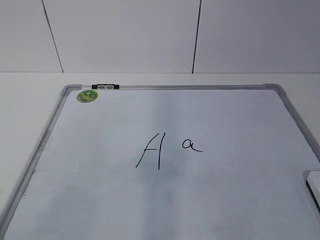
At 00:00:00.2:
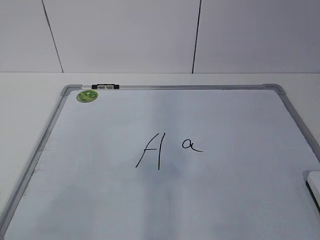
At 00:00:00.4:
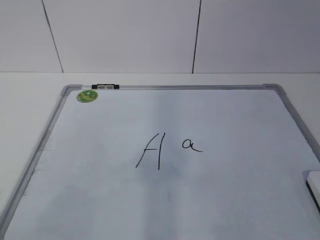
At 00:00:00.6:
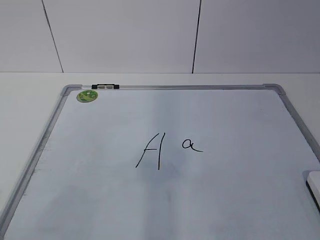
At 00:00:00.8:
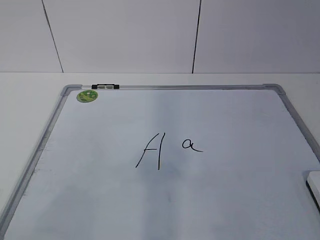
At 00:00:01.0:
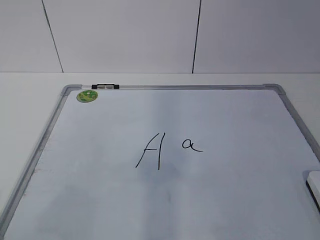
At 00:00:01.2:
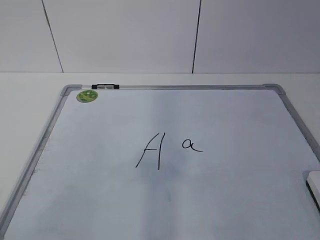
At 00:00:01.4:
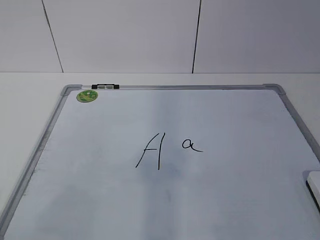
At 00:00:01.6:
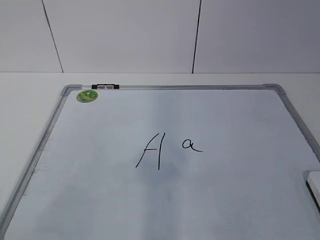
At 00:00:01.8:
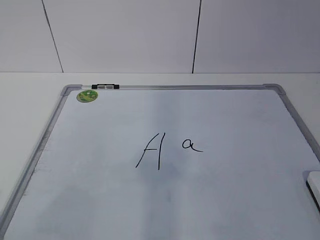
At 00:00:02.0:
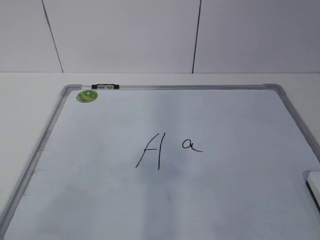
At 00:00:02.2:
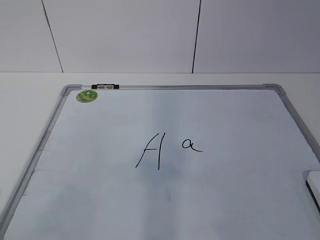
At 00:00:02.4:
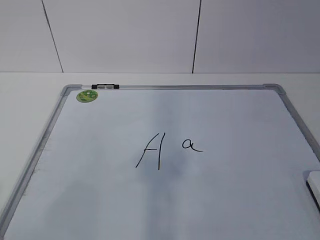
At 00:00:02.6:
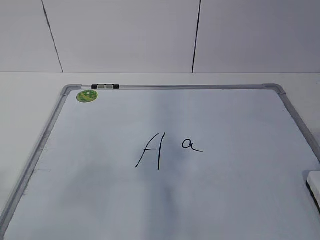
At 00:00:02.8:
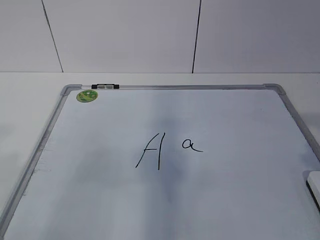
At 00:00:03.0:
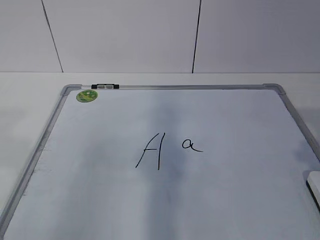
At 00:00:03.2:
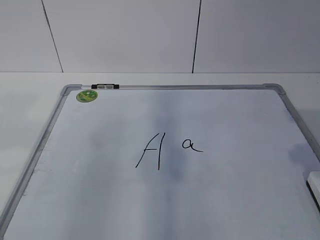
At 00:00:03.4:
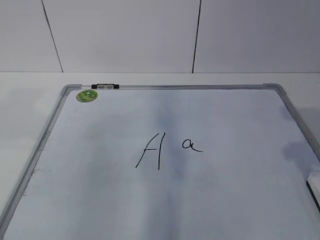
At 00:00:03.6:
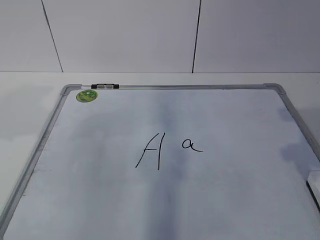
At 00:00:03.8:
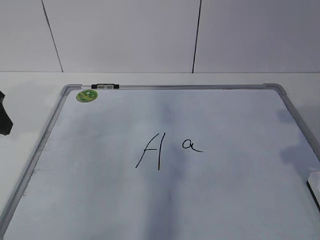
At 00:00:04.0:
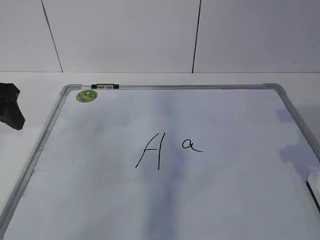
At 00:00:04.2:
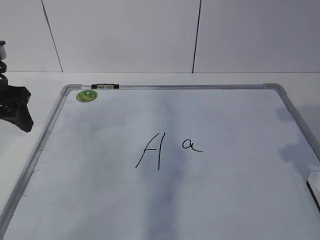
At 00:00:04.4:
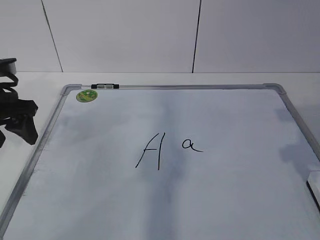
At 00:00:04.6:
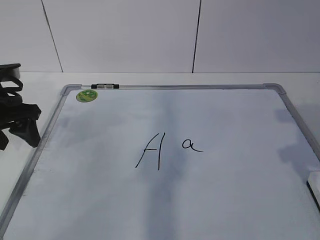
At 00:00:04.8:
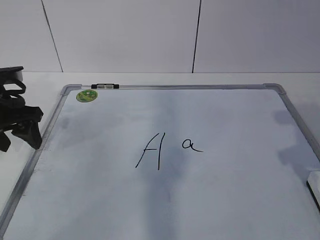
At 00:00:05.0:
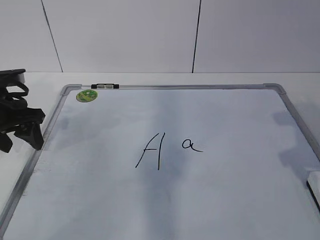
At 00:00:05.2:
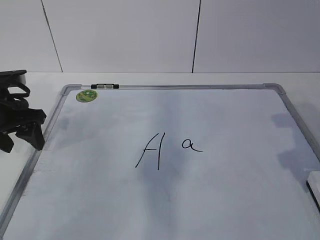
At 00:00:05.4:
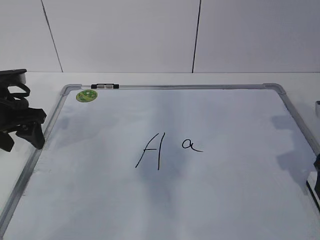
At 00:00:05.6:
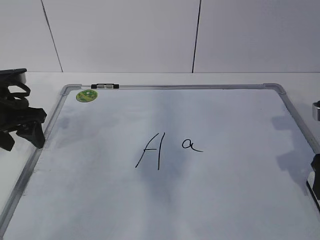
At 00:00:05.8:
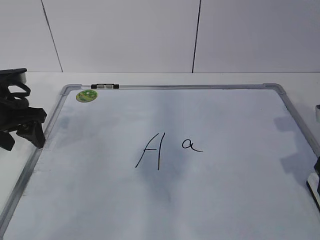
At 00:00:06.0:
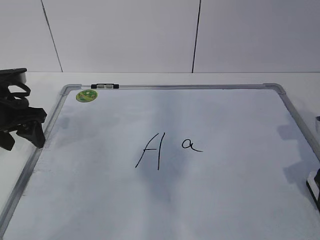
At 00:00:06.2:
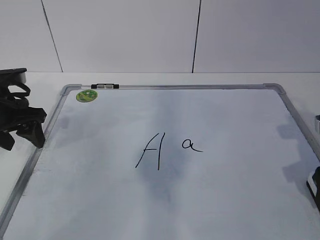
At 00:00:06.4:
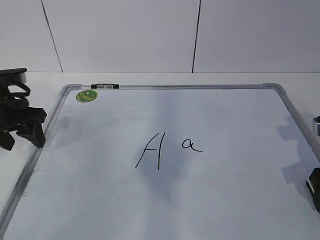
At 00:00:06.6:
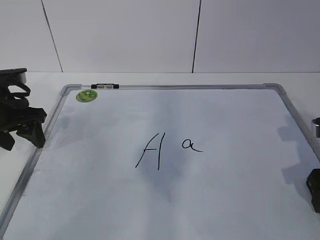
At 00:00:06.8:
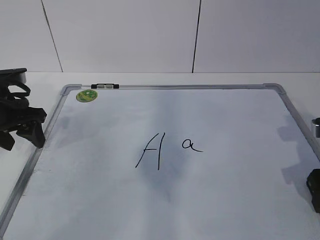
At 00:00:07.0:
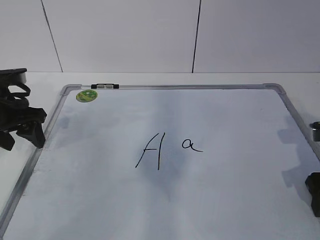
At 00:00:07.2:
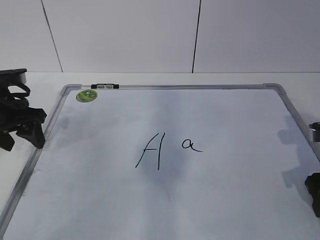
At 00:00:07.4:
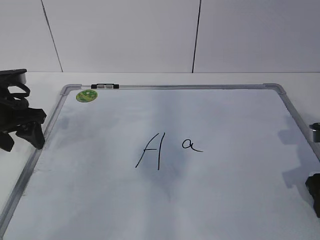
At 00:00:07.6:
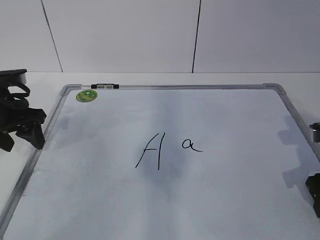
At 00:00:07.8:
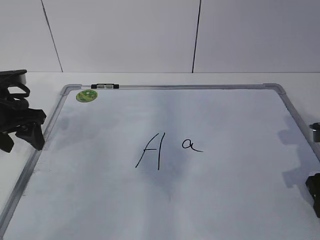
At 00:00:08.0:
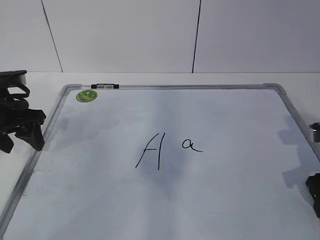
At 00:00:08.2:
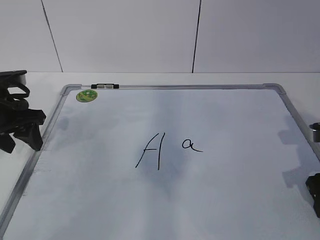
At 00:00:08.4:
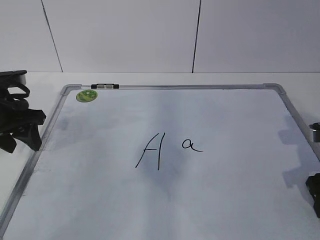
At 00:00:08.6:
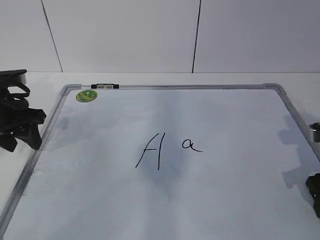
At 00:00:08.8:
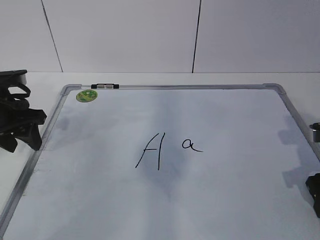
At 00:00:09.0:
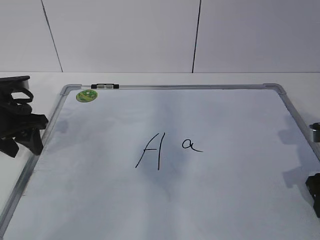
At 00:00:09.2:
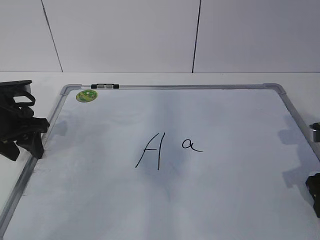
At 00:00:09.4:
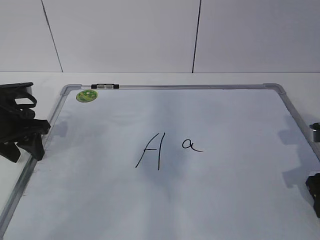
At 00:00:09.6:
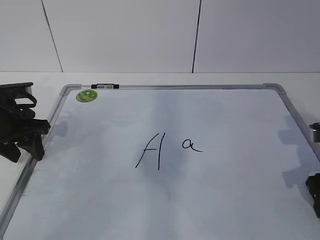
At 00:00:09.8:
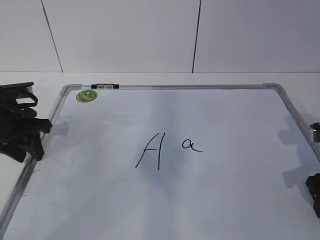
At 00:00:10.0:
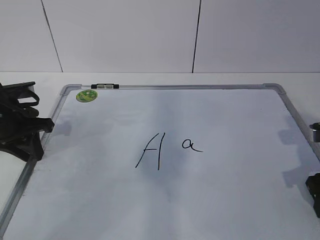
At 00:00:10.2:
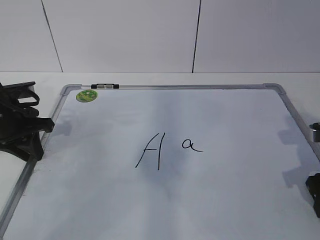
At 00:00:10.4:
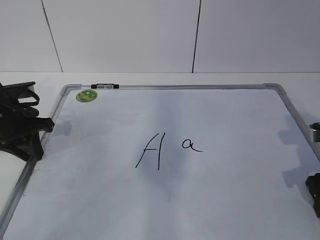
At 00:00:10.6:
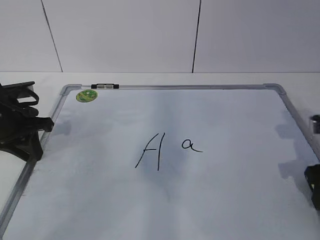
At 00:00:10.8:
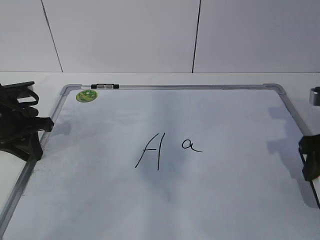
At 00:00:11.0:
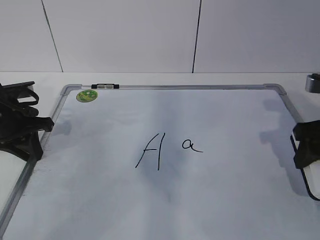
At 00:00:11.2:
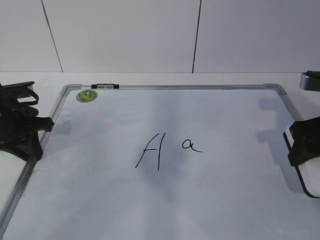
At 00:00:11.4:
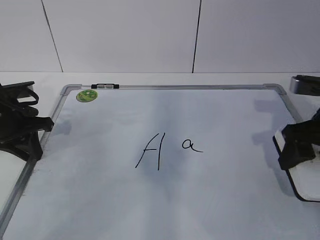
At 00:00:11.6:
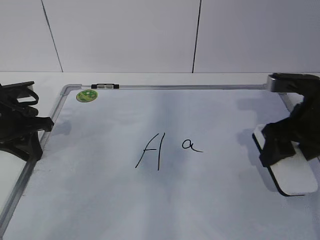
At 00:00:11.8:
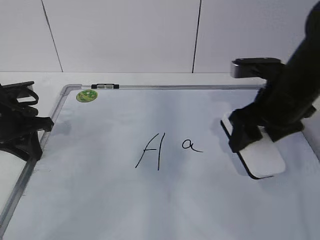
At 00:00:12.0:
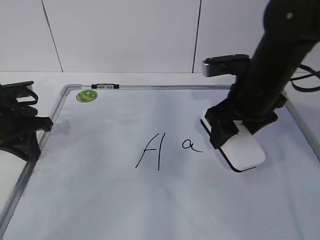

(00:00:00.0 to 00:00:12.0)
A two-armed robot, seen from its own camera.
Task of the whole recording: pick up the eraser on the blackboard and erase the letter "a".
Step, 00:00:00.0 - 00:00:08.6: Grab the eraser with your right hand.
Step, 00:00:08.8 - 00:00:10.0: Hold the drawing board steady with your left hand.
00:00:03.0 - 00:00:04.4: The left gripper moves forward and downward, approximately 25 cm.
00:00:04.4 - 00:00:06.0: The right gripper moves downward, approximately 10 cm, and opens up.
00:00:06.0 - 00:00:07.6: The right gripper closes up.
00:00:07.6 - 00:00:09.0: Both grippers stay put.
00:00:09.0 - 00:00:10.4: The left gripper closes.
00:00:10.4 - 00:00:12.0: The right gripper travels to the left, forward and upward by approximately 20 cm.

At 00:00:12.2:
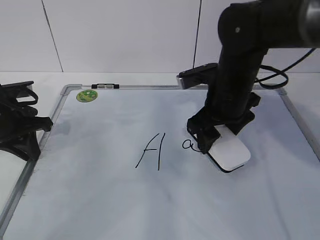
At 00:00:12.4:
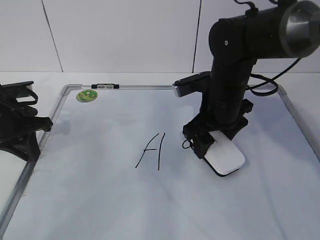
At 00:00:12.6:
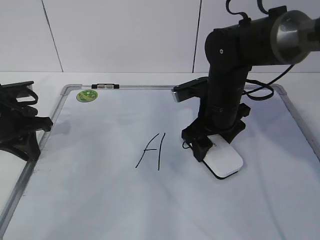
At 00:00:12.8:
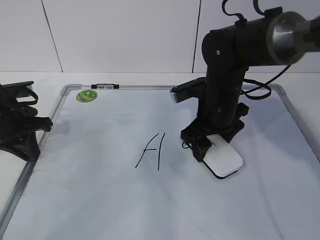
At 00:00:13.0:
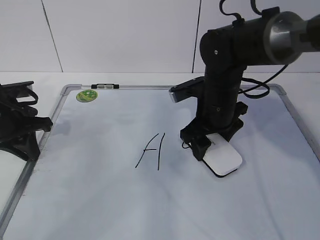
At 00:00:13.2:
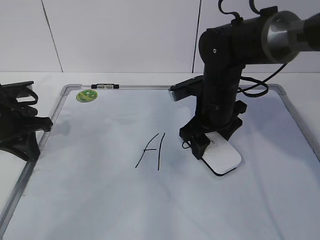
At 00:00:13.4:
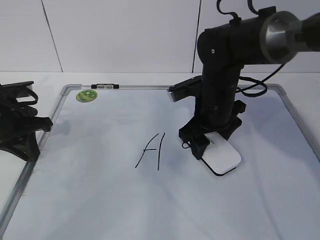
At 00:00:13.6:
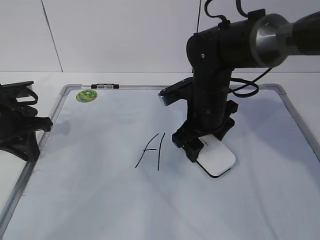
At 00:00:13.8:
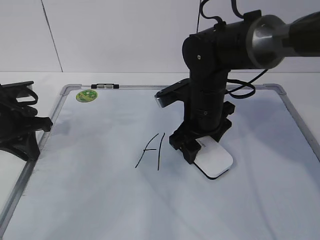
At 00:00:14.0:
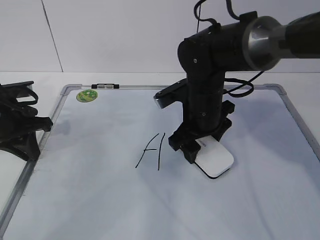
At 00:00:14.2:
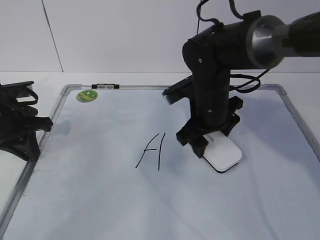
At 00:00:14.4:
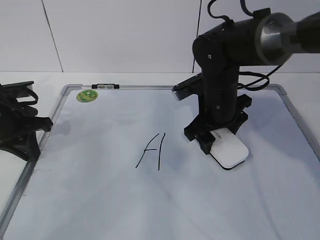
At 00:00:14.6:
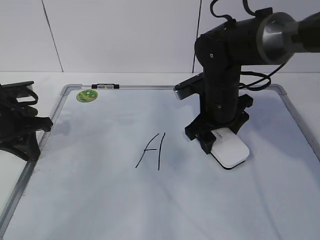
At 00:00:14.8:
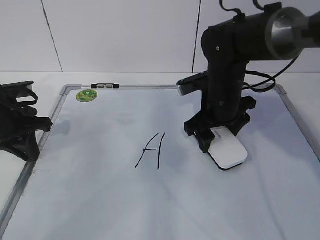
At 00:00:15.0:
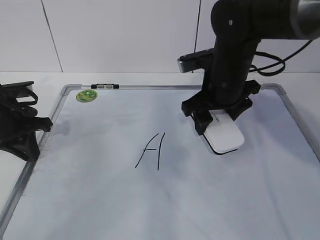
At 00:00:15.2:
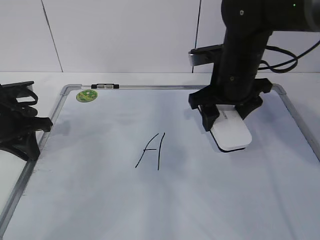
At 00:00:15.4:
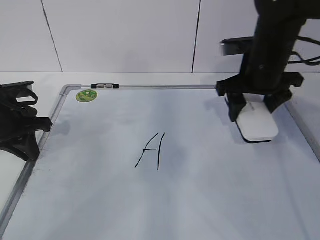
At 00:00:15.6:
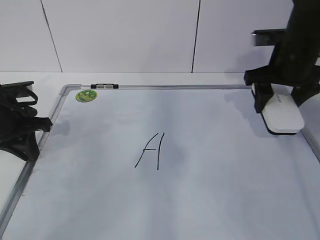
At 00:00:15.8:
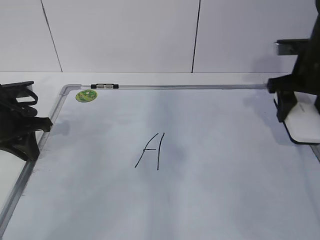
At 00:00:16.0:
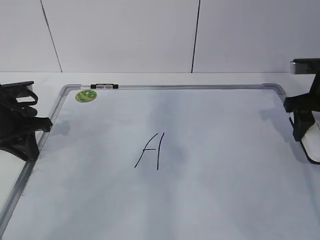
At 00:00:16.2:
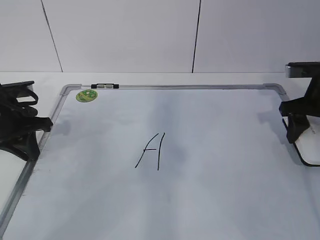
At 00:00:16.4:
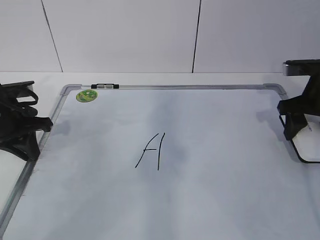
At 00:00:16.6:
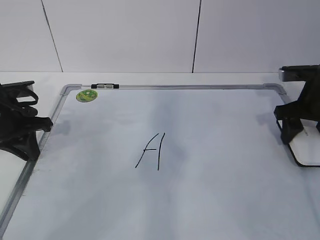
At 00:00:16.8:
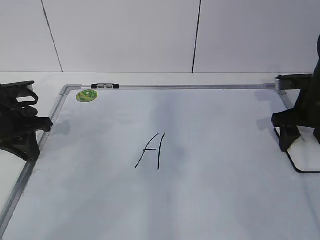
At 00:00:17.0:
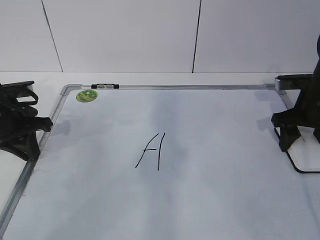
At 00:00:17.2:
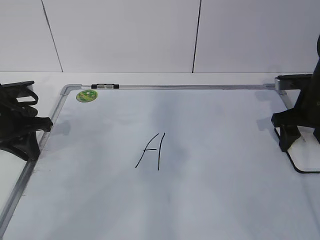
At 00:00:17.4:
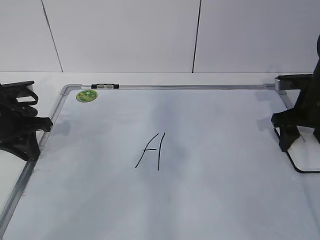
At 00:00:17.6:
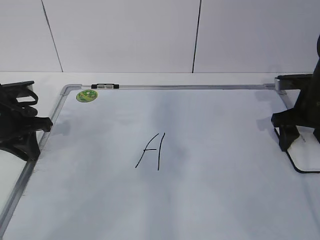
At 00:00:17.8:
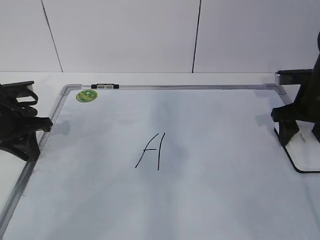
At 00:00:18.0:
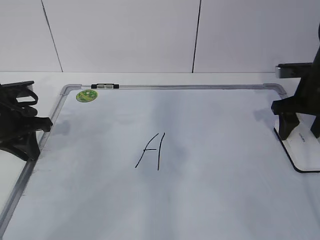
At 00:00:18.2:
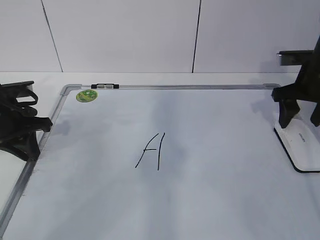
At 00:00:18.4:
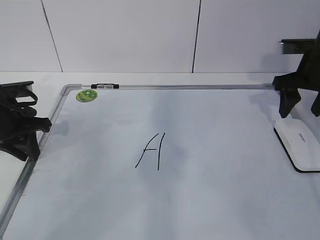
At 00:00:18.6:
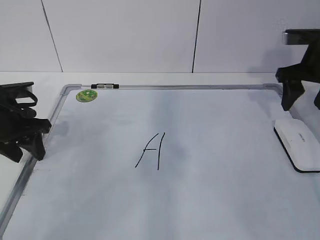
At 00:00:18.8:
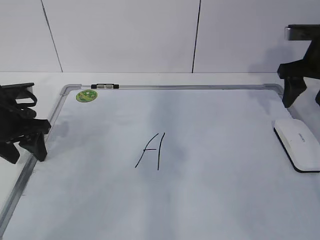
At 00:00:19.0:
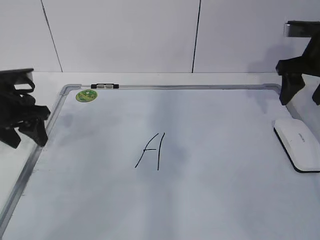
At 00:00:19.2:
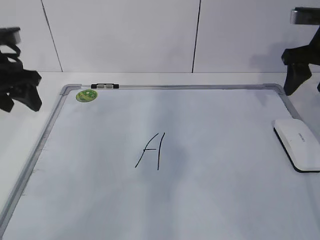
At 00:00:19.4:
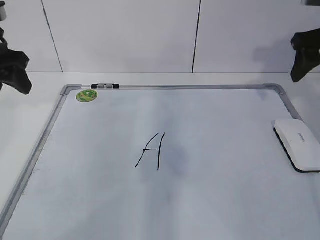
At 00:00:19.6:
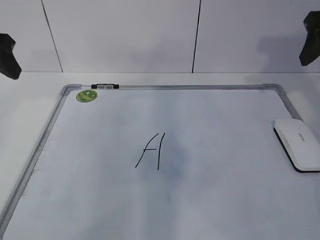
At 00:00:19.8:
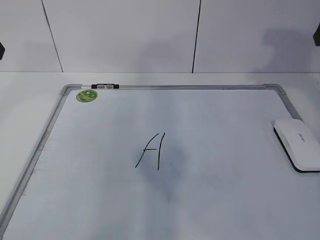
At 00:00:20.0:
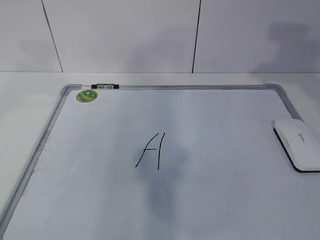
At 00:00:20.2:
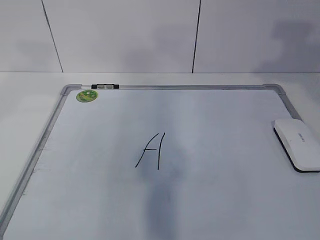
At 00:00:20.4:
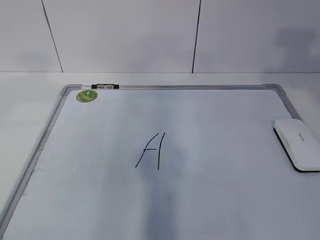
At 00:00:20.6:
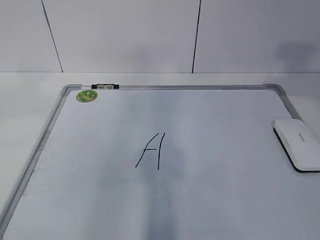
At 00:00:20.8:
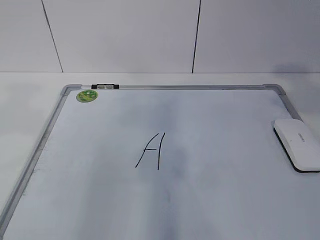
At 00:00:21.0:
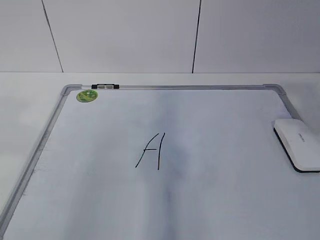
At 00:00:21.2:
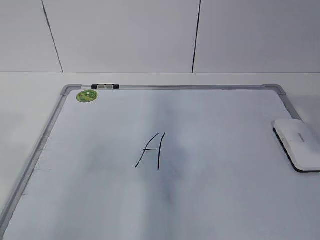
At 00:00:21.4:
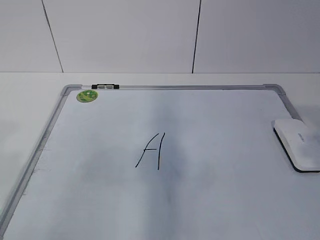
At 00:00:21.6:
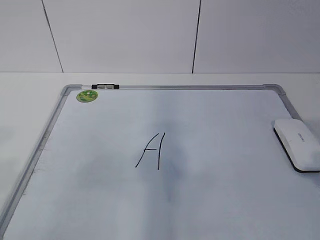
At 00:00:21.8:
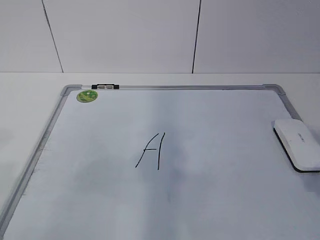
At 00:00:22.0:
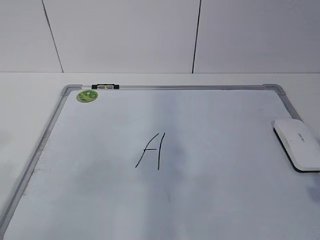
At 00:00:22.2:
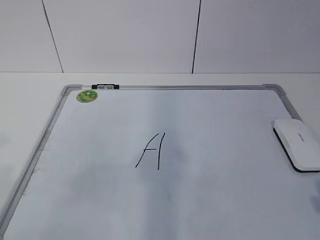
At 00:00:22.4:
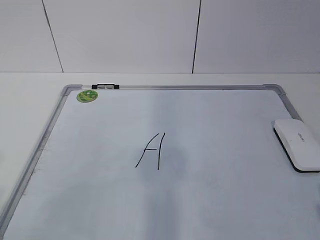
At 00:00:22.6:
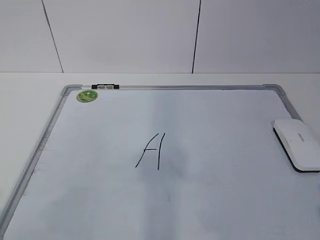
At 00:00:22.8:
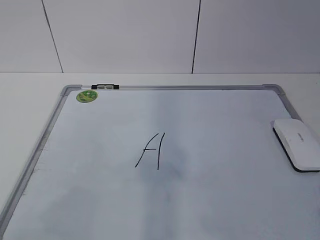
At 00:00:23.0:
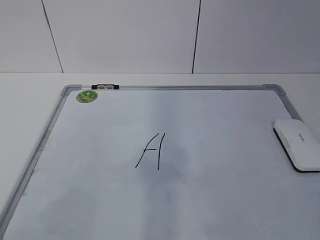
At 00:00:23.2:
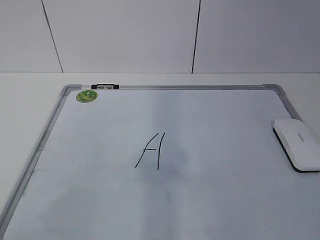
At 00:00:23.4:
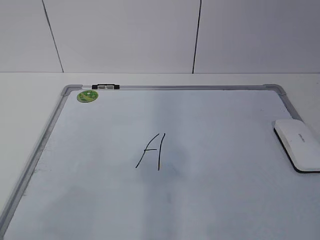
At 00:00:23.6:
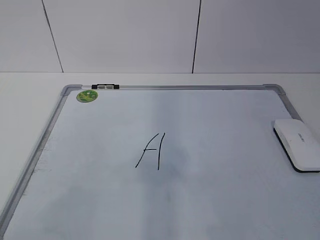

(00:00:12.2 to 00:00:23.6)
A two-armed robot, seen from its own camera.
Task of the whole recording: pick up the eraser on the blackboard and erase the letter "a".
Step, 00:00:12.2 - 00:00:14.6: Put down the eraser with your right hand.
00:00:12.2 - 00:00:13.6: The right gripper moves about 5 cm.
00:00:13.6 - 00:00:15.0: The right gripper ends up about 5 cm from where it was.
00:00:15.0 - 00:00:16.4: The right gripper is displaced to the right by some 20 cm.
00:00:16.4 - 00:00:17.8: The grippers stay close to where they were, moving slightly.
00:00:17.8 - 00:00:19.4: The two grippers go roughly 15 cm upward. The left gripper opens its fingers.
00:00:19.4 - 00:00:20.8: Both grippers move backward and upward, about 25 cm.
